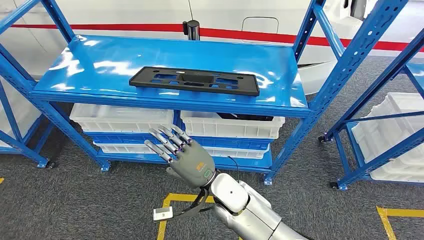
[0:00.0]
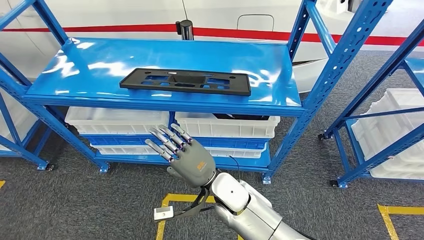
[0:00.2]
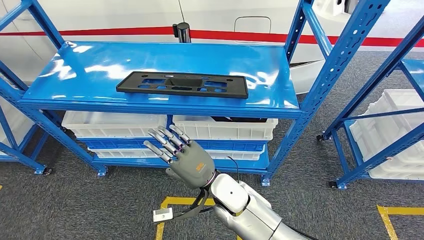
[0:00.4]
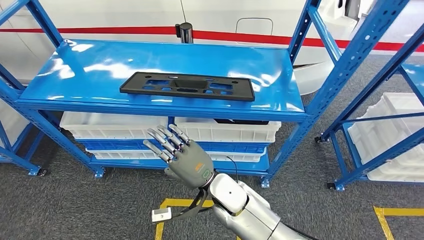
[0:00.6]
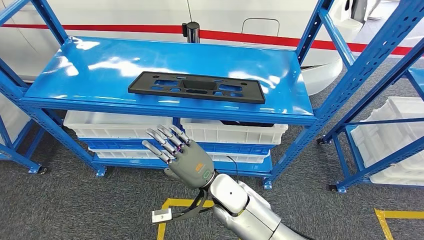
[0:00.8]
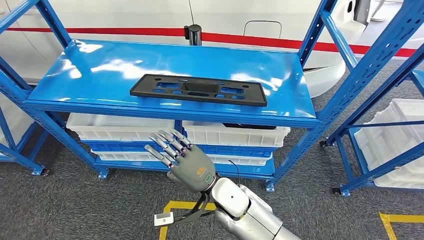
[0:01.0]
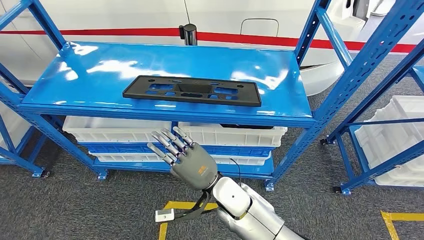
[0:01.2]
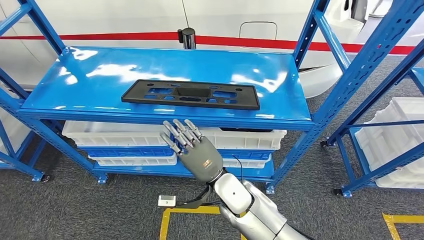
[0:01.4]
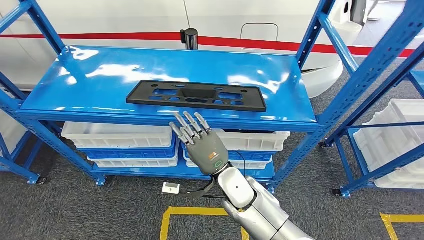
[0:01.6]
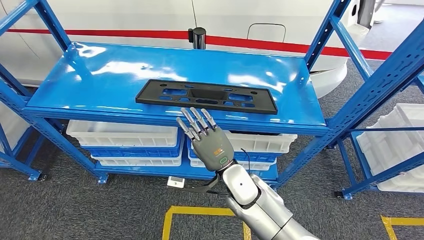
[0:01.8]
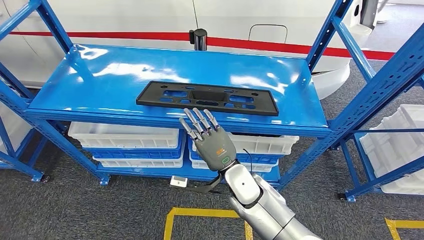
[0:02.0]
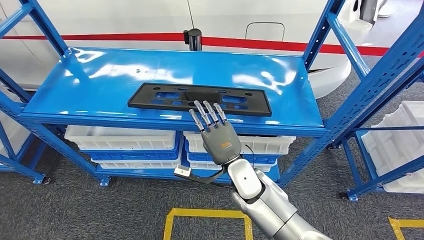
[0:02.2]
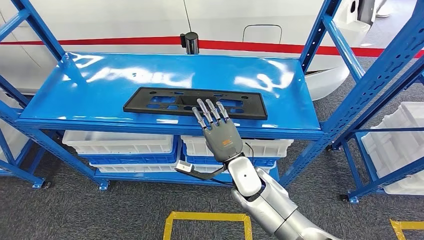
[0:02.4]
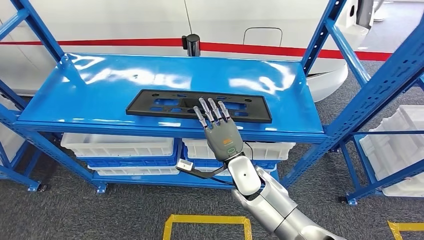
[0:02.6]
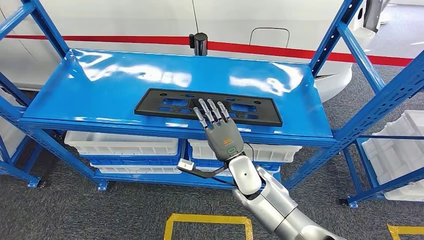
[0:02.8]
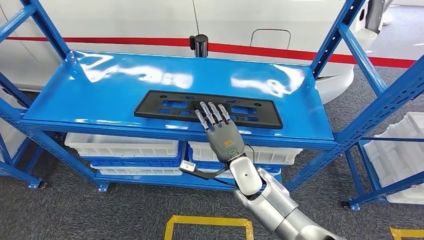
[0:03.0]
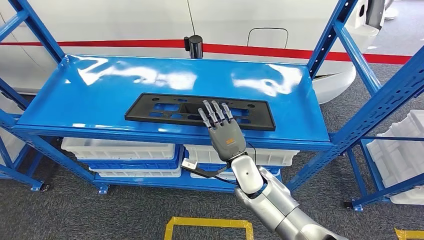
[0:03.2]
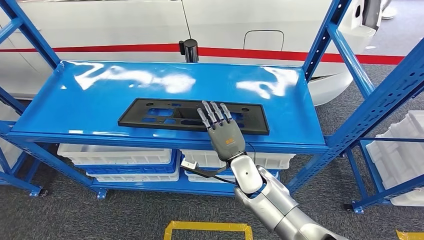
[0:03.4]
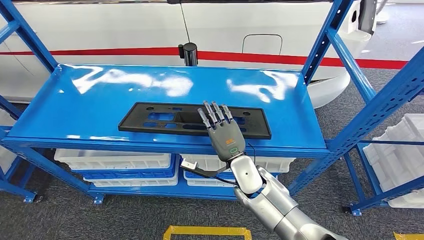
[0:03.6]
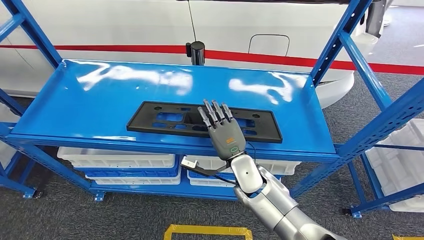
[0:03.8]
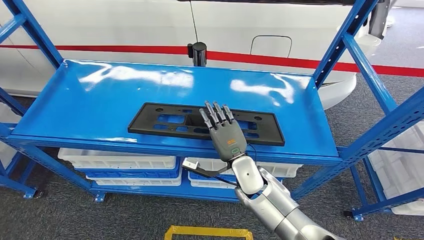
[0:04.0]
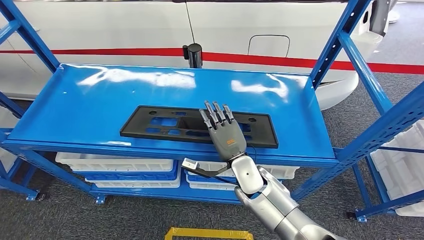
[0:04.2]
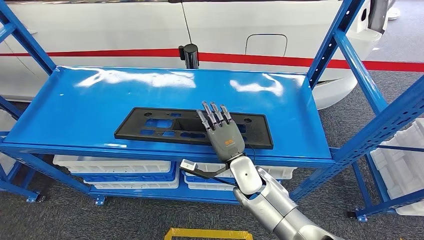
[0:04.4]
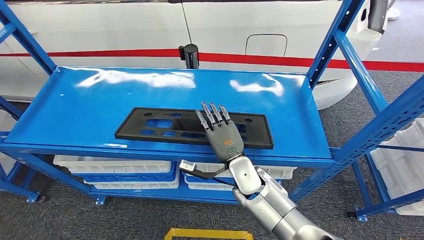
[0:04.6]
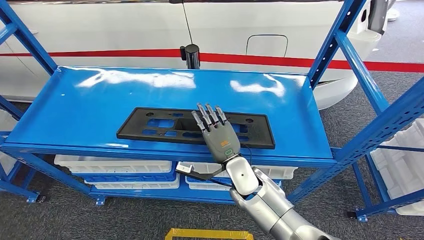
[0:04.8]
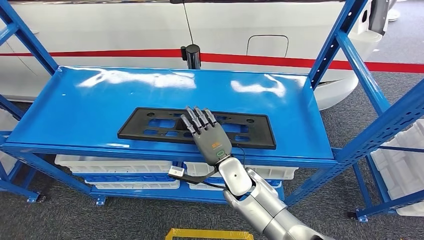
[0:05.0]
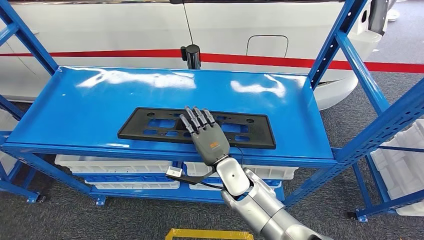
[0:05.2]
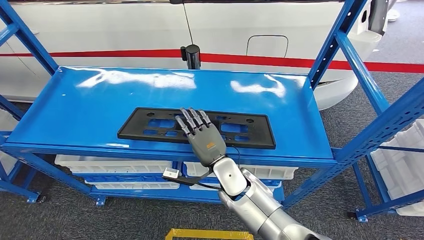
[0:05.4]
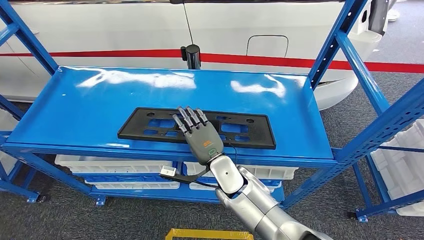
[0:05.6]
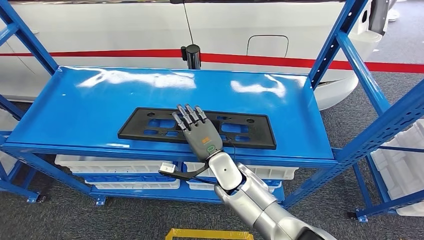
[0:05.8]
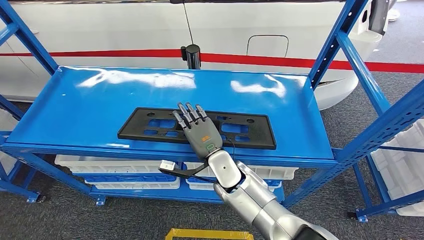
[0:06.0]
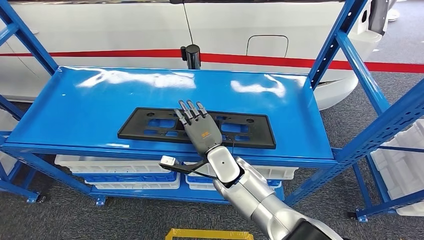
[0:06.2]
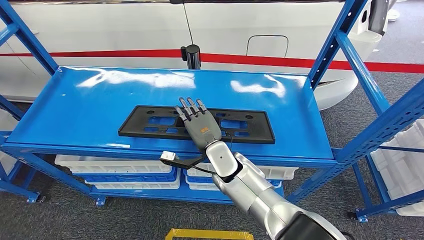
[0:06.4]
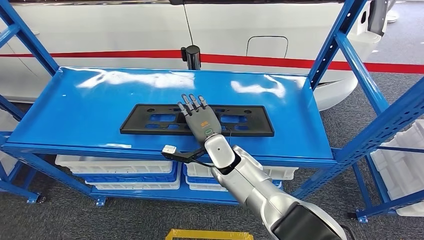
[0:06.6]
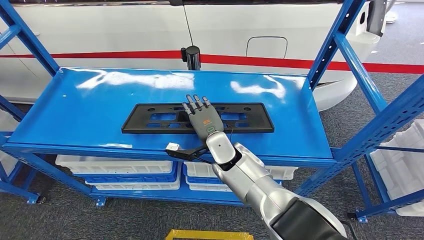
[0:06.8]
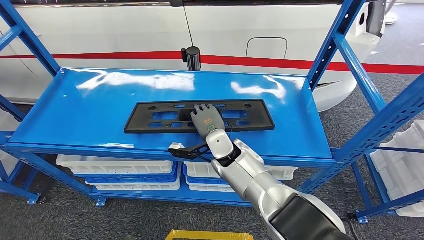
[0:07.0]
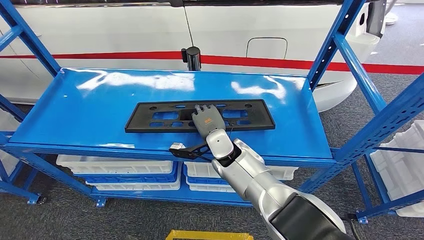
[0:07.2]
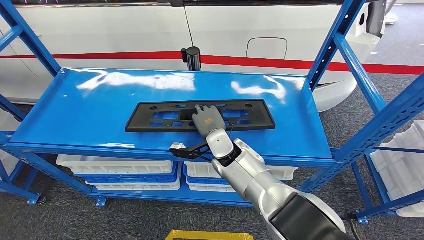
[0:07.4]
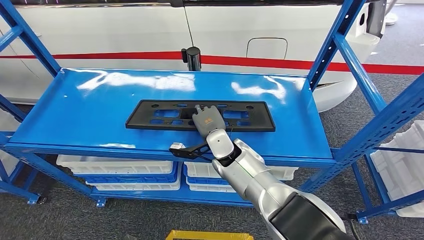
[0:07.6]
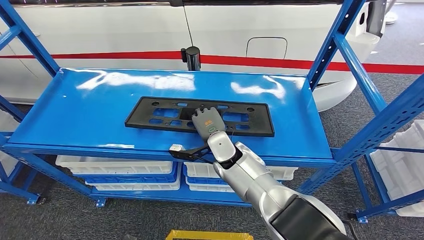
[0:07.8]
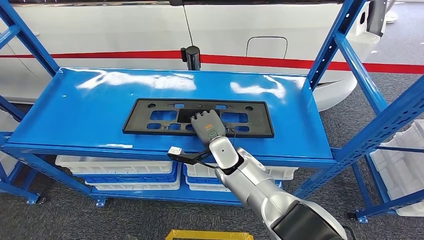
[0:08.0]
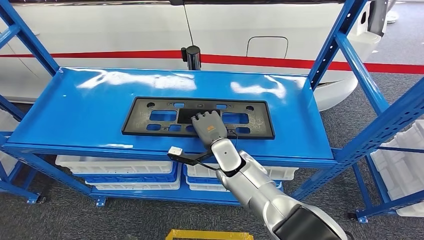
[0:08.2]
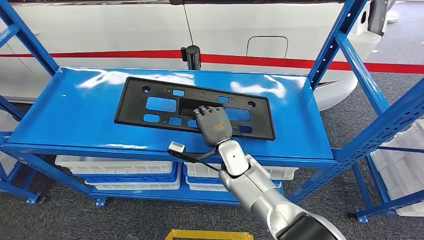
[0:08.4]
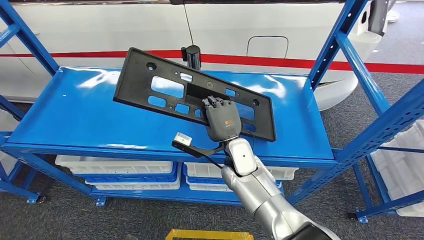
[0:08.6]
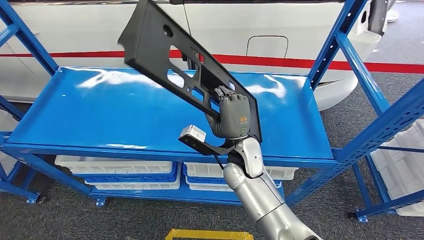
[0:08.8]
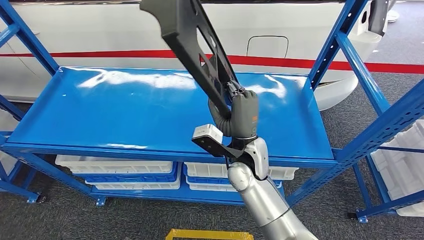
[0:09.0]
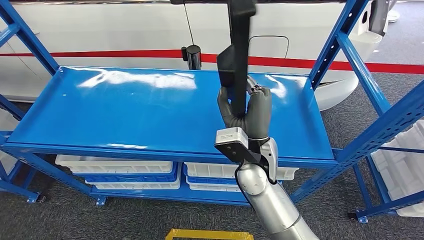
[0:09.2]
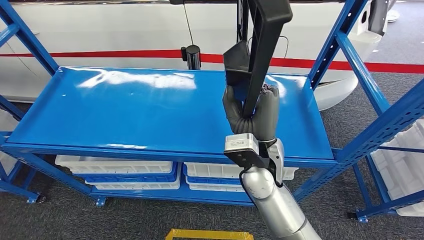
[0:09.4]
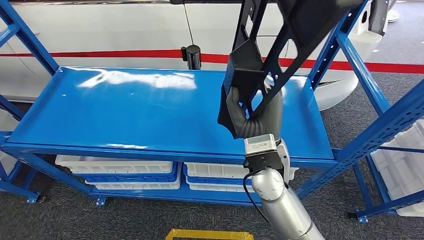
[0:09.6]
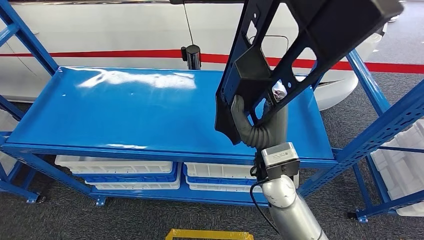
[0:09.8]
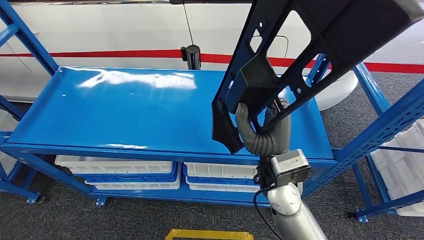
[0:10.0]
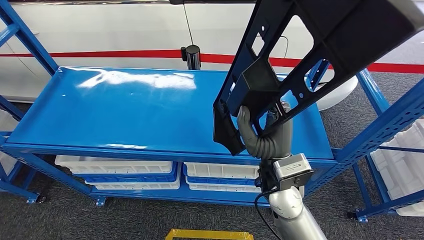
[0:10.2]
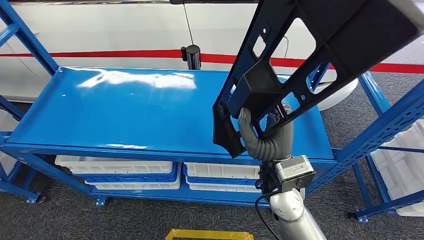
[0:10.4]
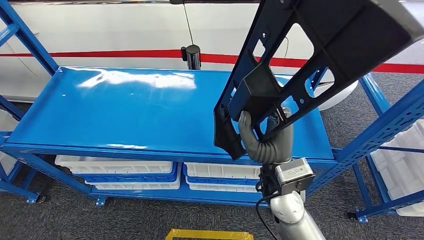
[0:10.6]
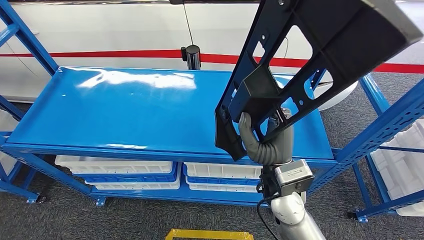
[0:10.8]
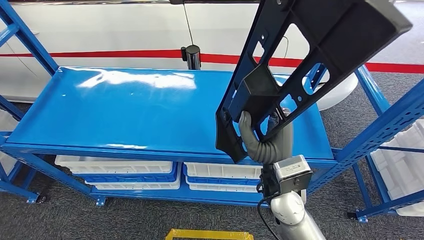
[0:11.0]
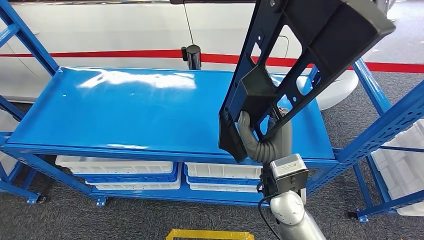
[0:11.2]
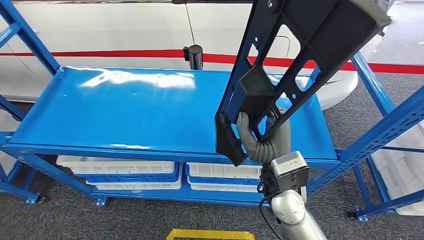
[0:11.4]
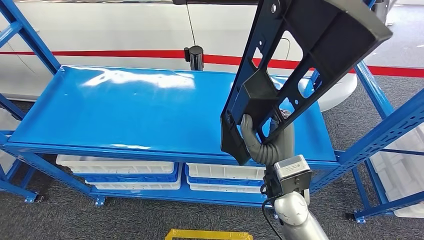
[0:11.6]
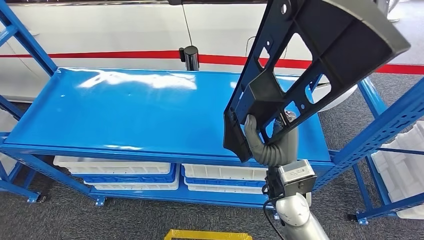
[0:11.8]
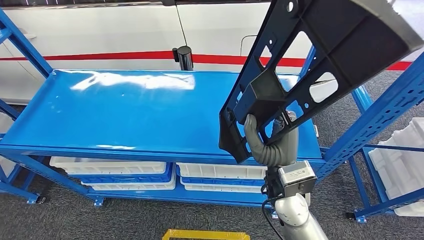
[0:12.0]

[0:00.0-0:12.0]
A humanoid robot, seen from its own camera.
Step, 0:00.0 to 0:12.0: Pick up the large material from the shelf.
0:04.4 to 0:06.0: The right hand moves to the left, roughly 5 cm.

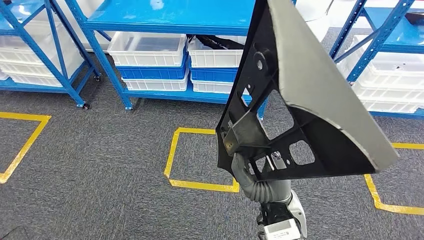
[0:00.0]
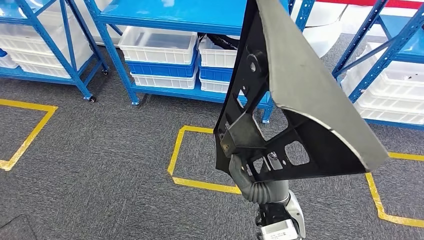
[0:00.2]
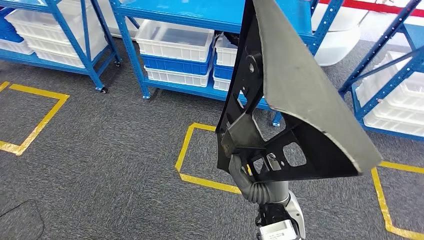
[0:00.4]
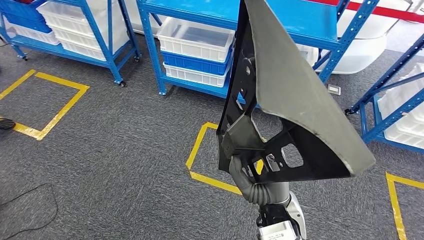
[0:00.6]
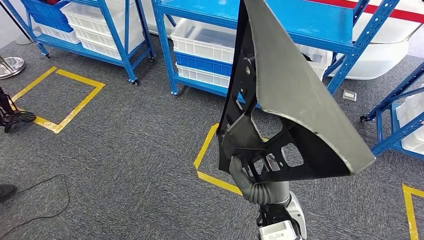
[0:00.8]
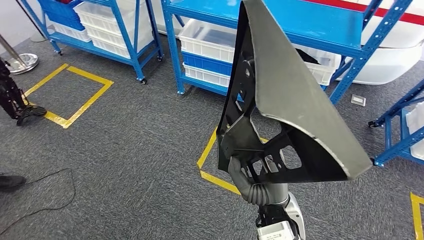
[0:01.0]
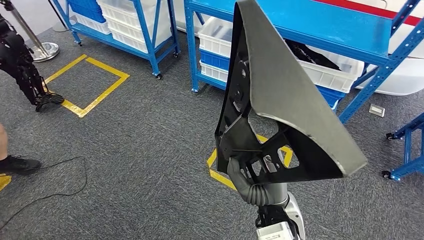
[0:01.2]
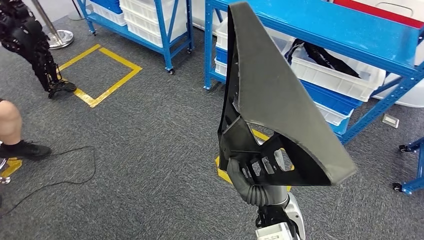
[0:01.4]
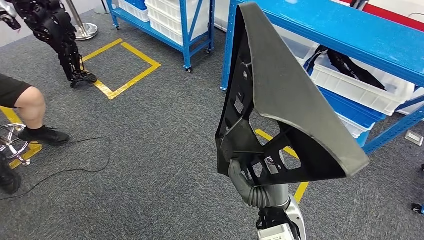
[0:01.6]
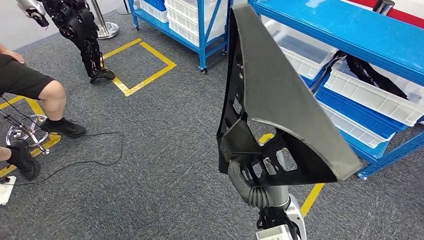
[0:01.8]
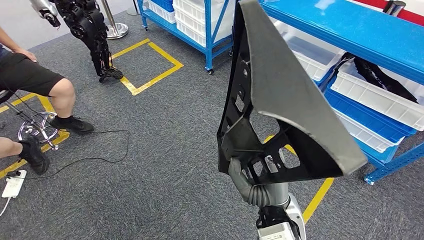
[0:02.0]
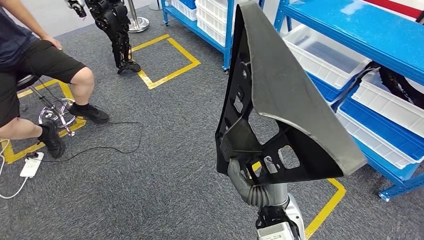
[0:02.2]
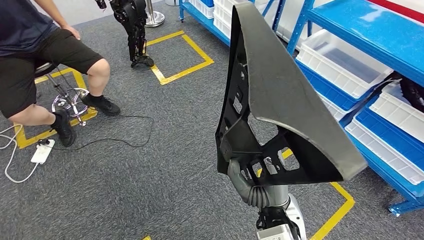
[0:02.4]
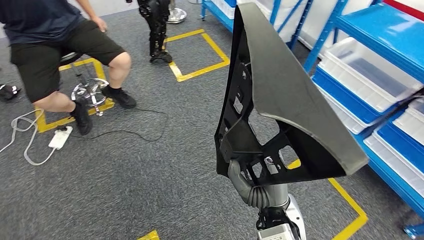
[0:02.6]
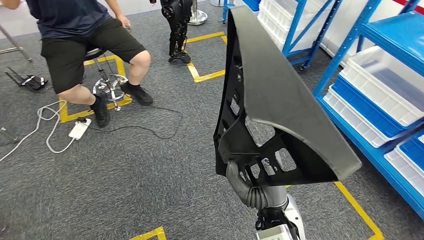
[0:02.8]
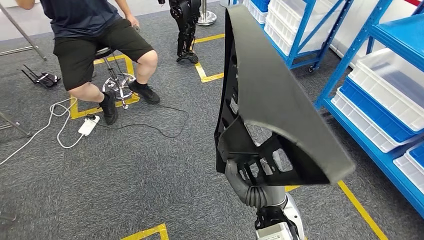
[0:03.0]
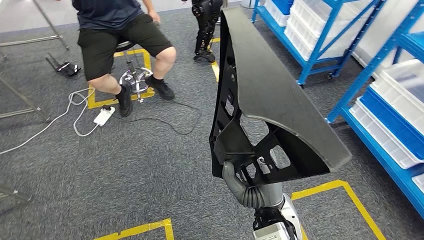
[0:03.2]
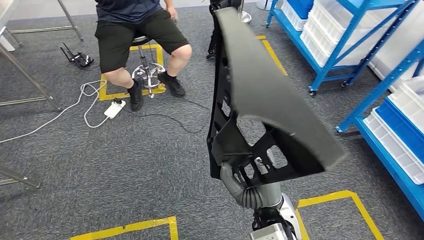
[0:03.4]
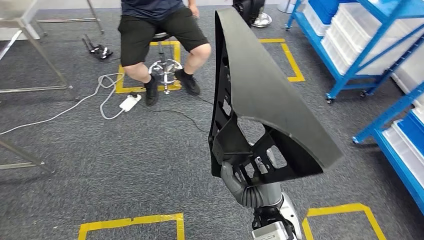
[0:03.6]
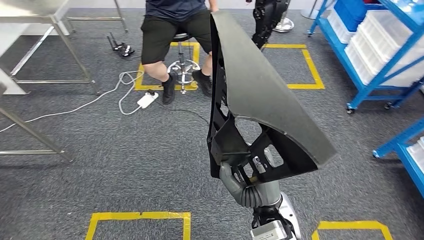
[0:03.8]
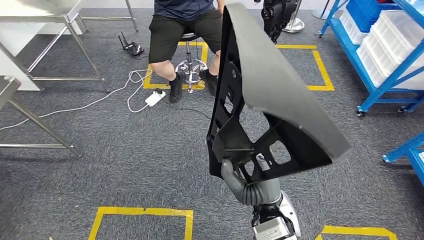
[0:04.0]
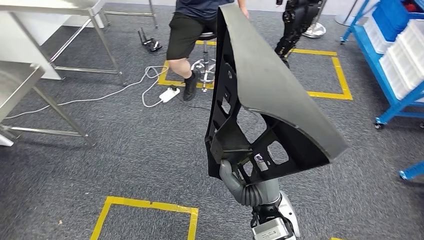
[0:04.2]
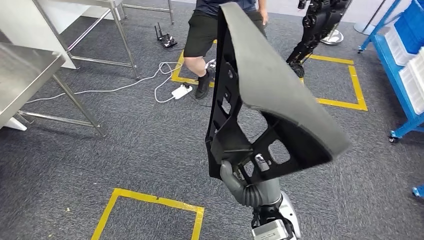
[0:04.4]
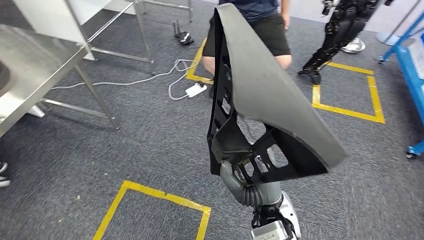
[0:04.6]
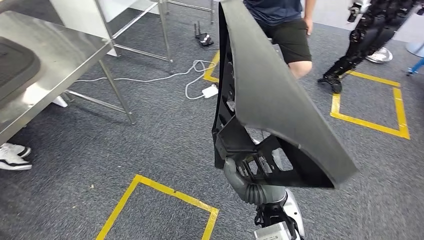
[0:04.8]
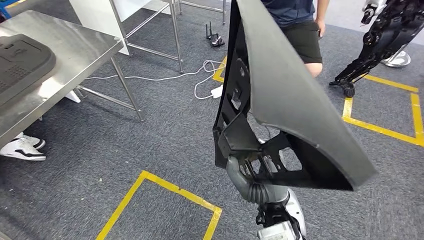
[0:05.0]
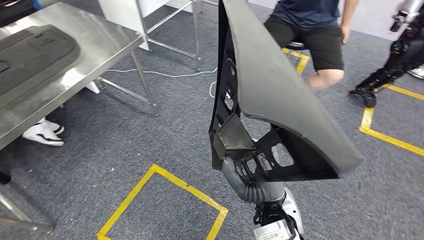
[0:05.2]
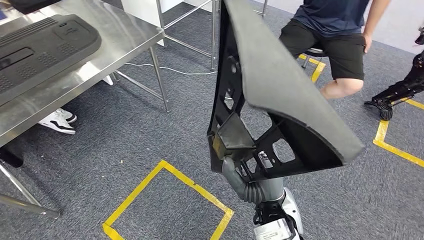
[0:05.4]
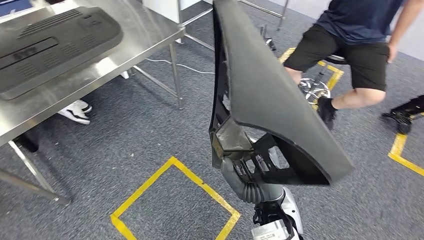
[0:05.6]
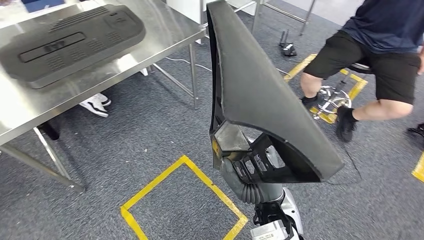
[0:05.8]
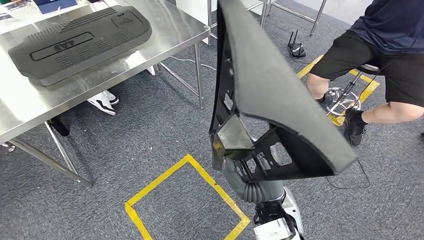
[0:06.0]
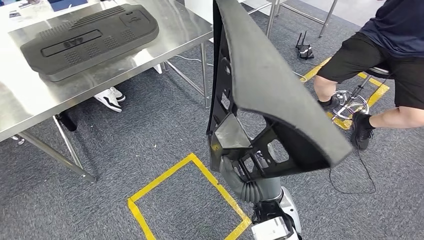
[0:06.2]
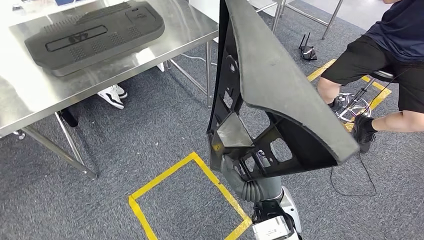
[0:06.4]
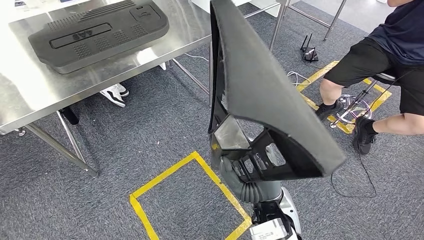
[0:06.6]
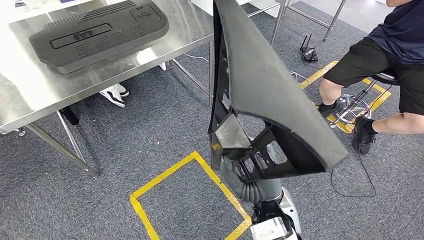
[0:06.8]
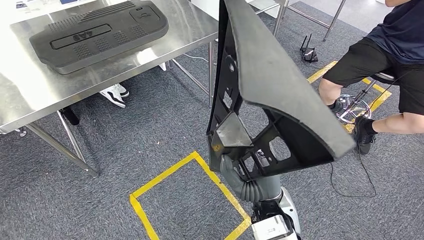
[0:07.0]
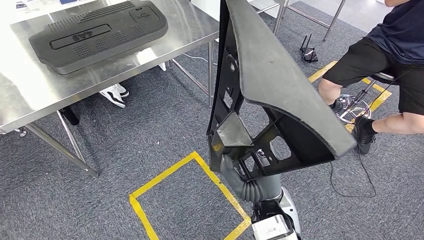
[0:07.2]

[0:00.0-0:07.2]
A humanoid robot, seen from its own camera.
Step, 0:00.0 to 0:06.6: Move the large material to the workbench.
